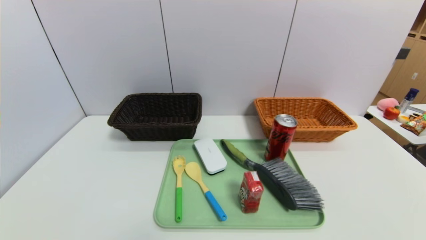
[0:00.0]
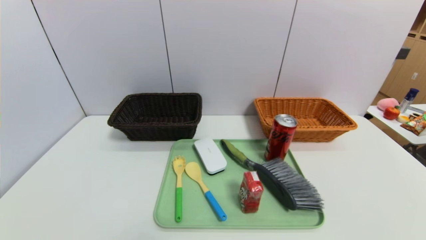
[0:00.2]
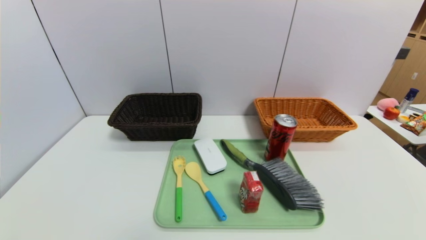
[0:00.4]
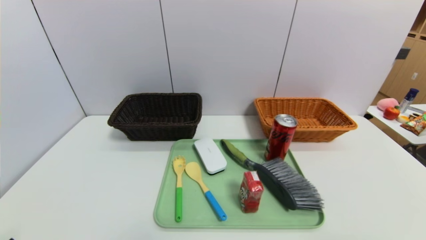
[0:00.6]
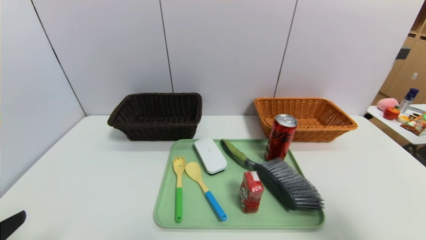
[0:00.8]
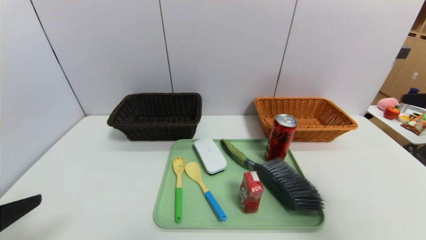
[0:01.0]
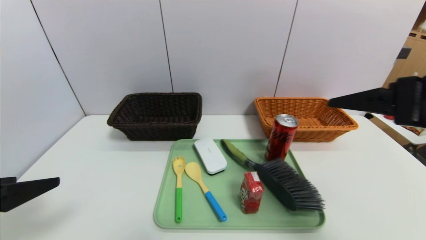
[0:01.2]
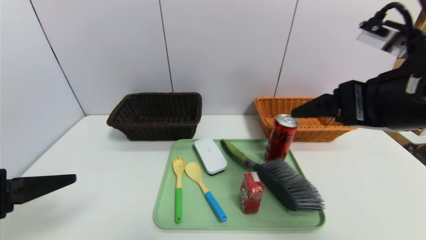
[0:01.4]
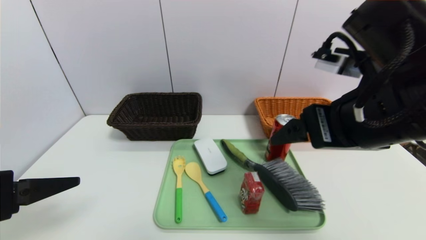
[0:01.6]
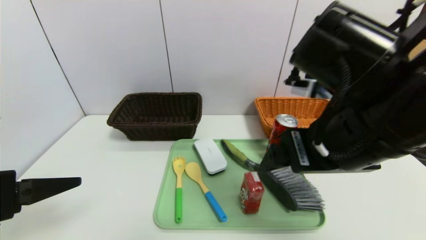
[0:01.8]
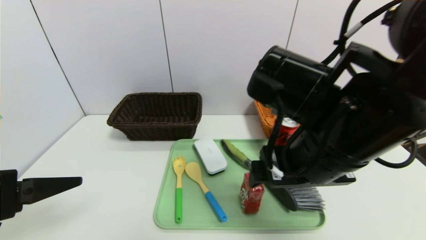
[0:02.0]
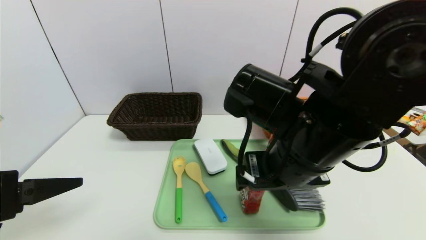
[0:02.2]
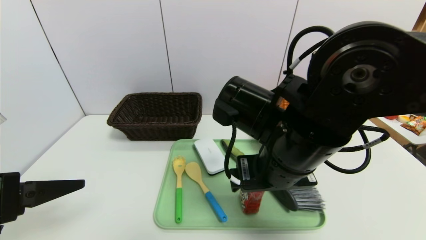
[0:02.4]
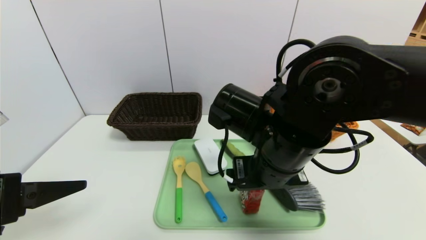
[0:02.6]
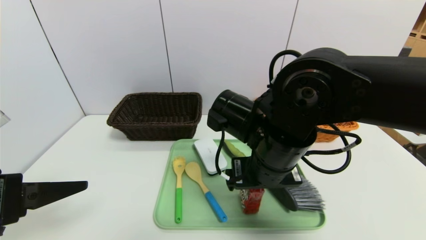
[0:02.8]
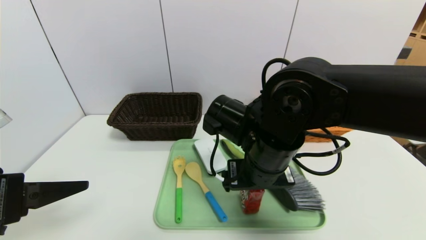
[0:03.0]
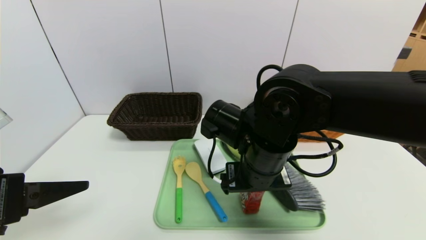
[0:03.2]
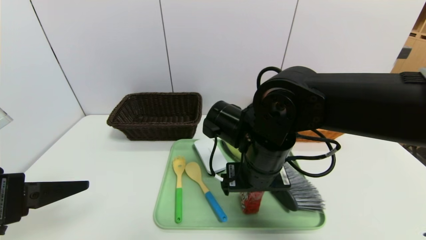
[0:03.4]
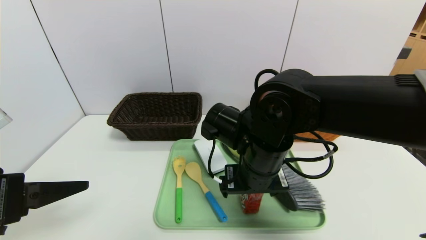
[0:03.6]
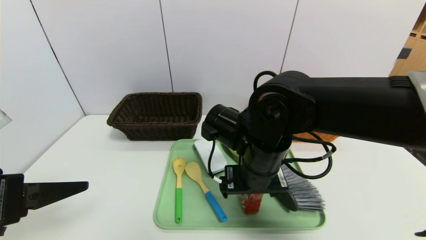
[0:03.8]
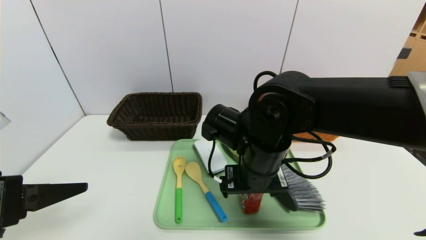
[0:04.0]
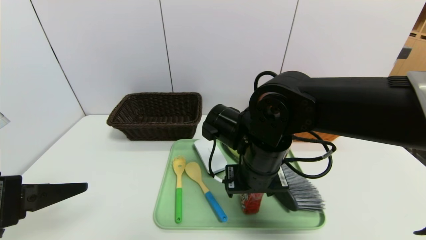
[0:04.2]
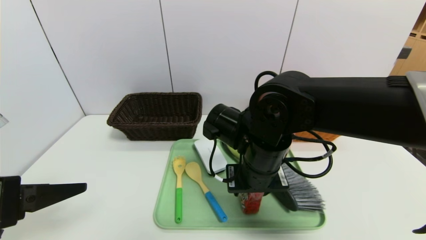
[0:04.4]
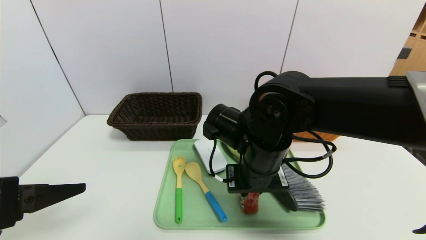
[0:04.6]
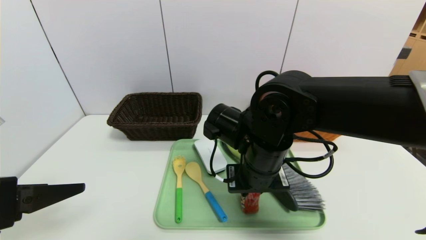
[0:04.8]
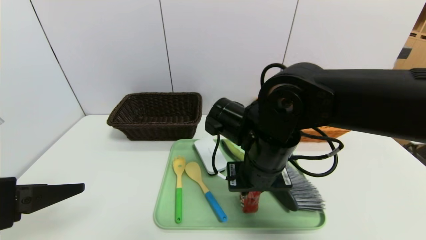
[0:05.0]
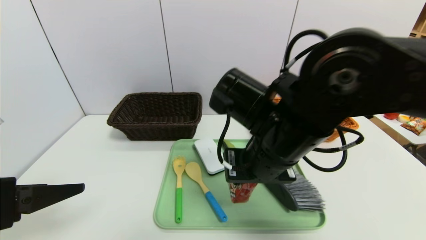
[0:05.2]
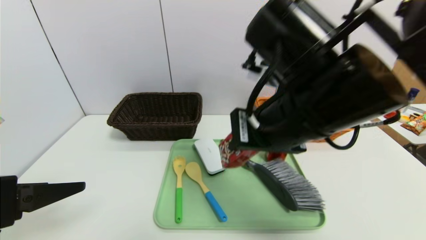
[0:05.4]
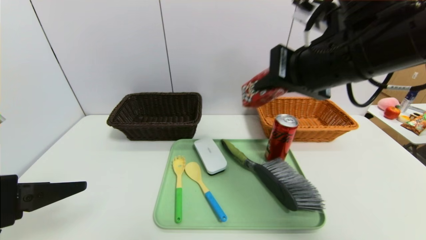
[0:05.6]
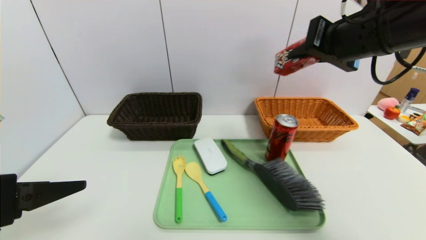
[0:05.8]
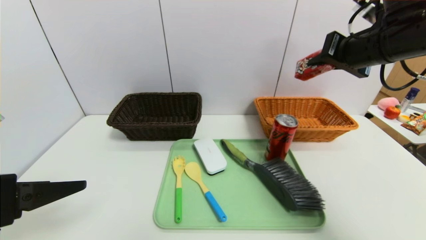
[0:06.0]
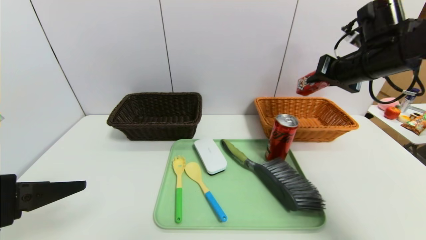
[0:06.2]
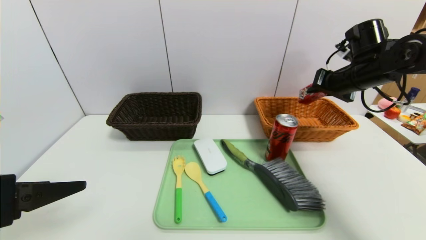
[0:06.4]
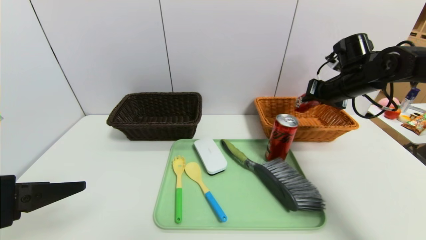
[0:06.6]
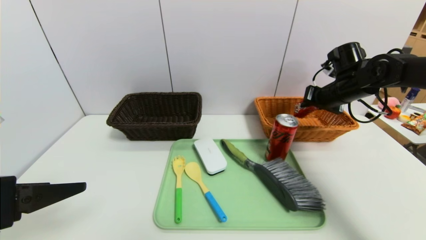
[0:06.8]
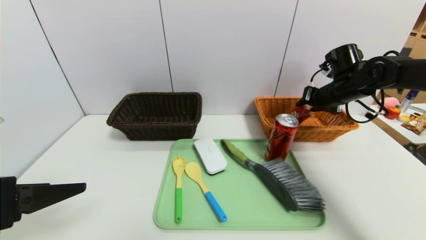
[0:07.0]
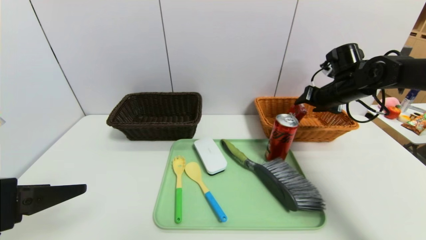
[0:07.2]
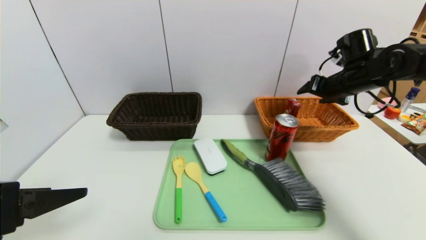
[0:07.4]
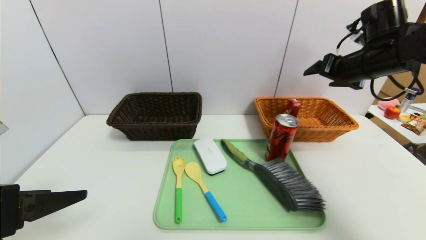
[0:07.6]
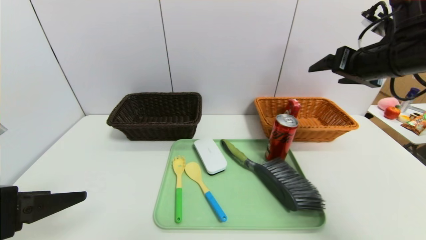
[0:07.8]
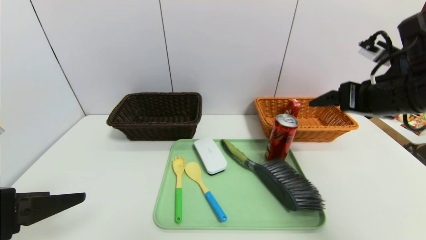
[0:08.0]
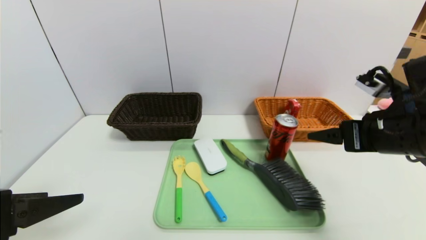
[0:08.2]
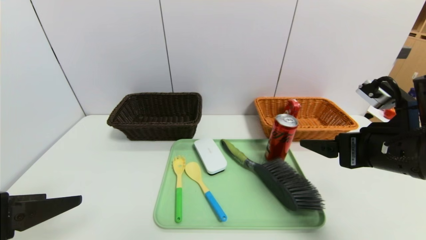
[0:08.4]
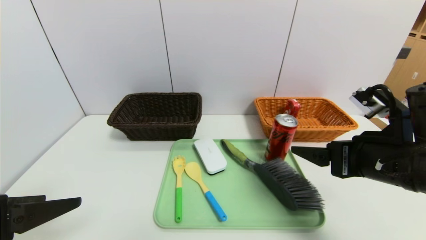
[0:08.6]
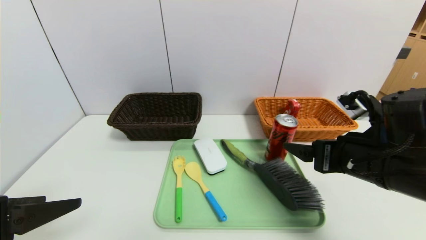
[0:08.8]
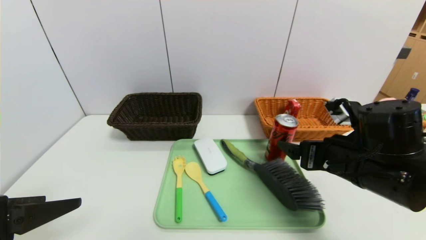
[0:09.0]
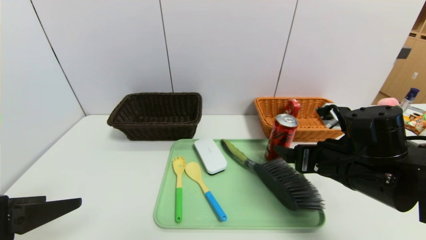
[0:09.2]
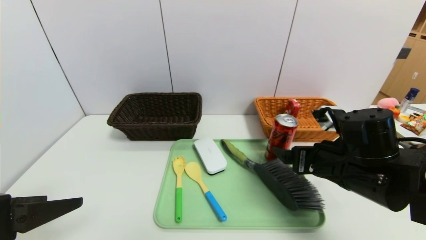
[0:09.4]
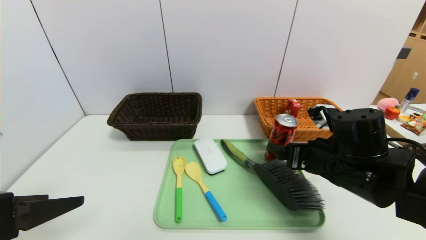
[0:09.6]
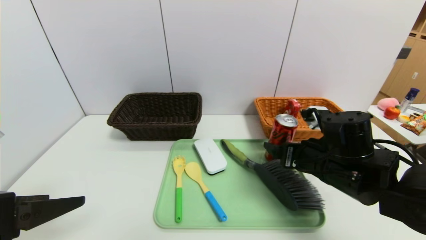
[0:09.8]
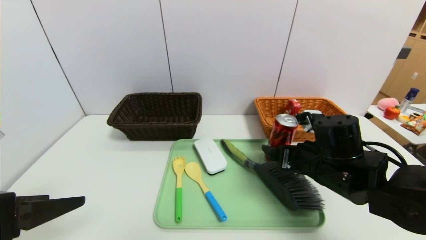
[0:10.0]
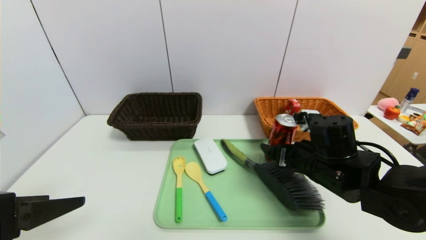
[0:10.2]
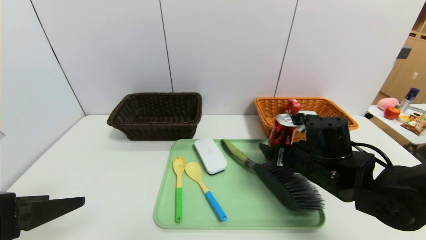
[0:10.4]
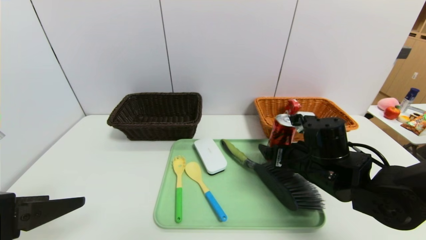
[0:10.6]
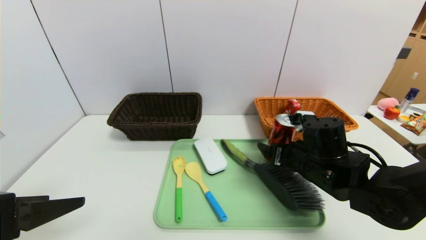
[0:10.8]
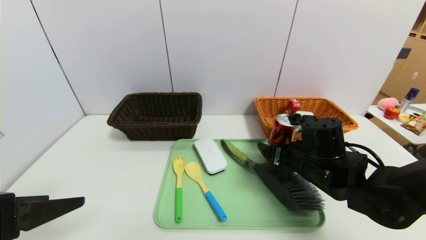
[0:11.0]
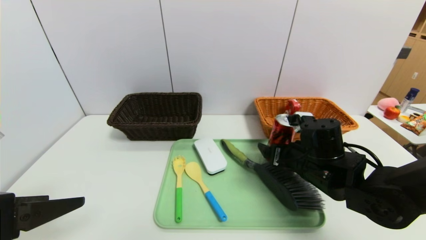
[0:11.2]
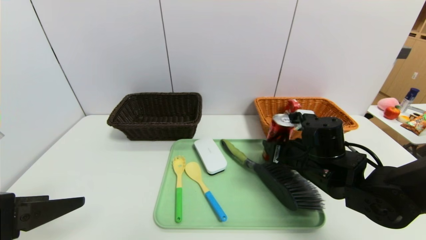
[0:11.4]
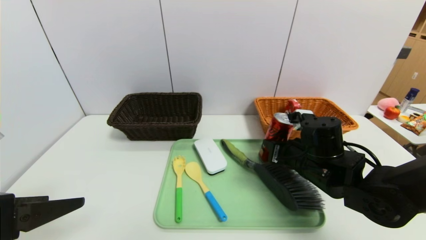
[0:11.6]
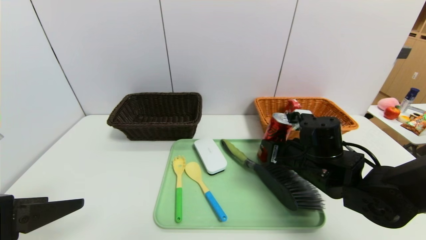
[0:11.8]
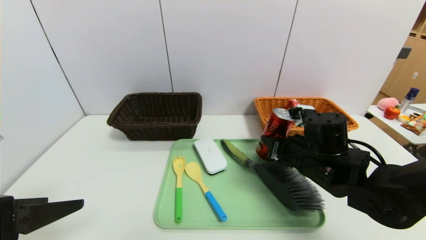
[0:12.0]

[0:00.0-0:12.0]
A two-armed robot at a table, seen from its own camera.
Task of the whole recording: place the food in the right basket with the right gripper, and place the non food items in the left basket with the left gripper.
Step, 0:00.0 to 0:07.0: Grasp the ad milk and put it in the right basket.
0:00.0 to 0:01.6: The left gripper shifts about 20 cm upward and forward, while the right gripper travels upward, forward and to the left by some 35 cm.
0:01.6 to 0:03.0: The right gripper shifts about 15 cm downward, to the left and forward.
0:03.0 to 0:04.4: The right gripper closes up.
0:04.4 to 0:06.0: The right gripper heads to the right and upward, covering about 25 cm, and closes.
0:06.0 to 0:07.6: The right gripper moves roughly 10 cm downward and comes back, and opens.
0:07.6 to 0:09.0: The right gripper moves backward, downward and to the left, some 20 cm.
0:09.0 to 0:10.4: The right gripper is displaced downward by about 5 cm.
0:10.4 to 0:12.0: The right gripper closes its fingers.

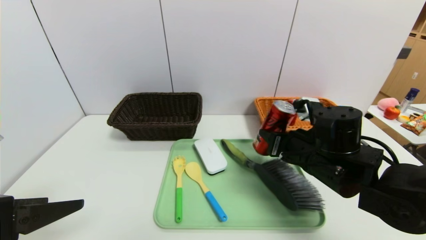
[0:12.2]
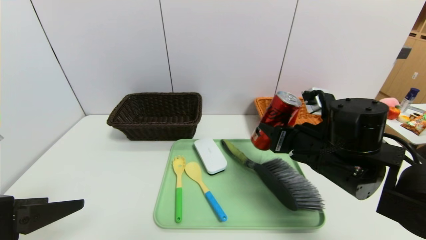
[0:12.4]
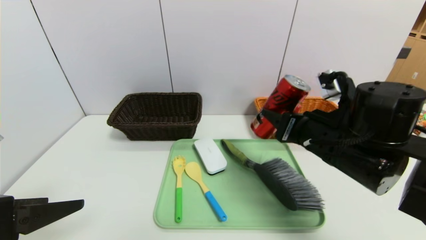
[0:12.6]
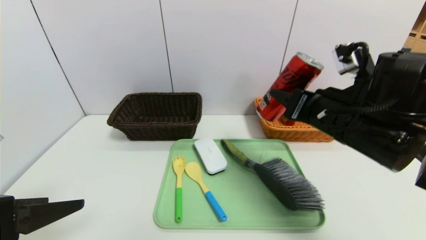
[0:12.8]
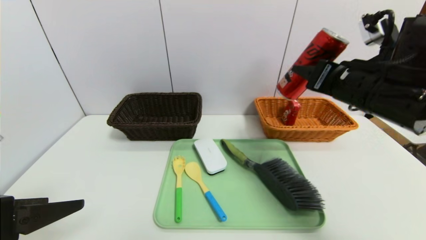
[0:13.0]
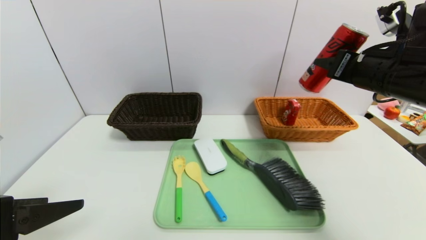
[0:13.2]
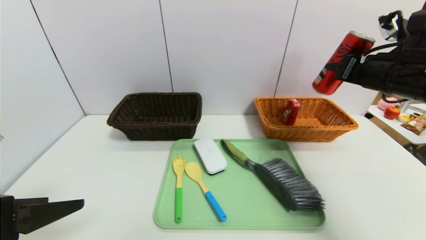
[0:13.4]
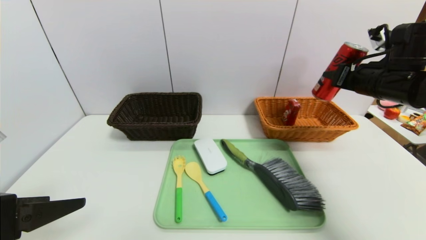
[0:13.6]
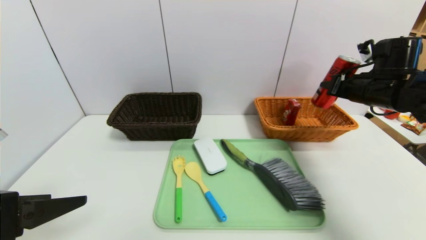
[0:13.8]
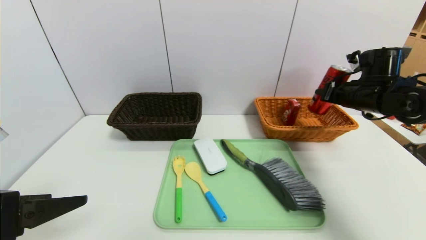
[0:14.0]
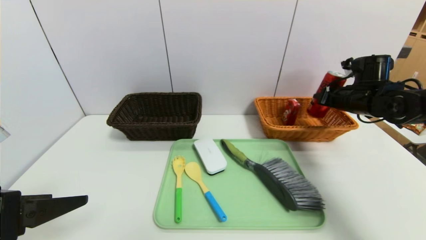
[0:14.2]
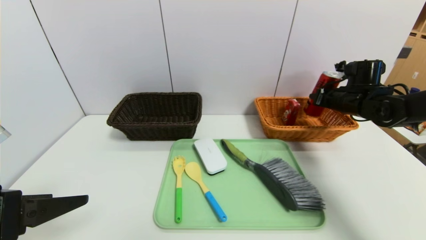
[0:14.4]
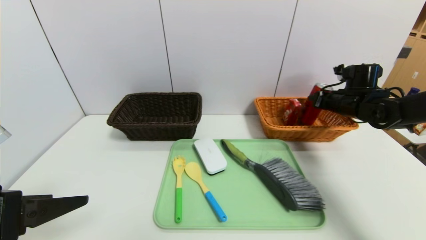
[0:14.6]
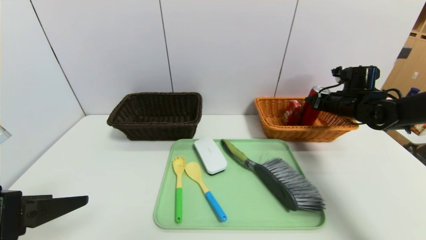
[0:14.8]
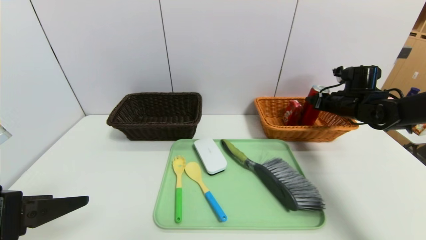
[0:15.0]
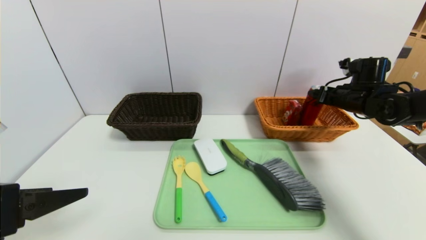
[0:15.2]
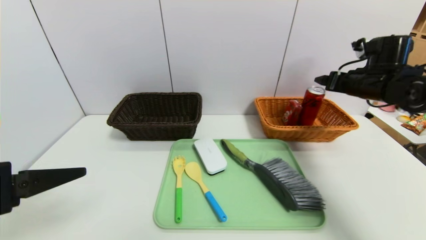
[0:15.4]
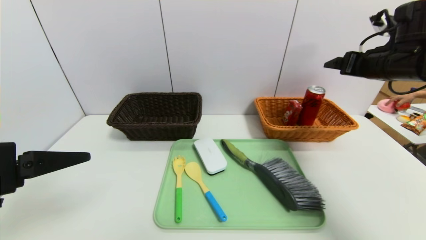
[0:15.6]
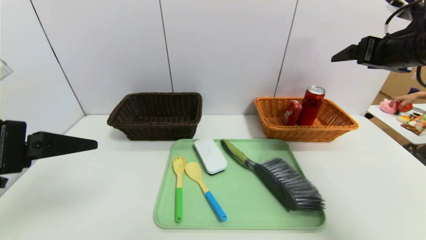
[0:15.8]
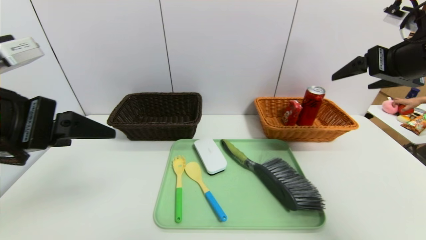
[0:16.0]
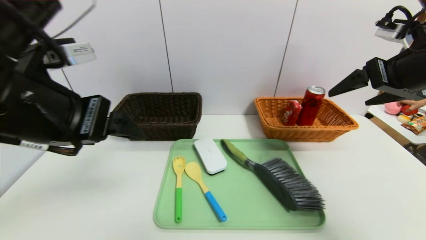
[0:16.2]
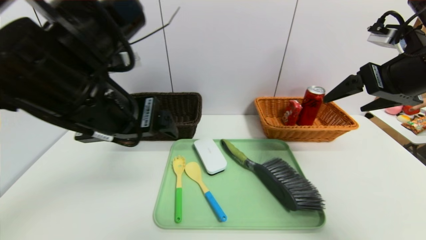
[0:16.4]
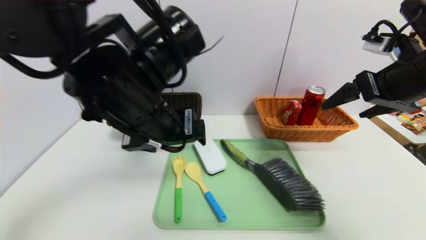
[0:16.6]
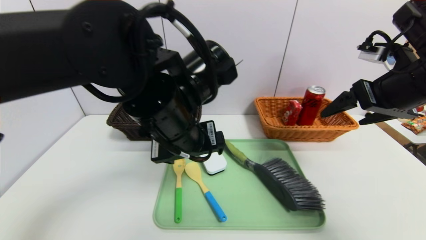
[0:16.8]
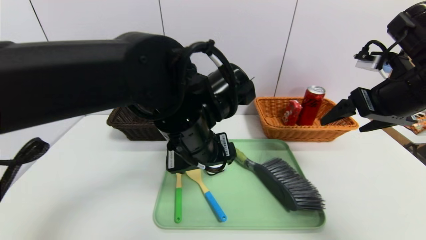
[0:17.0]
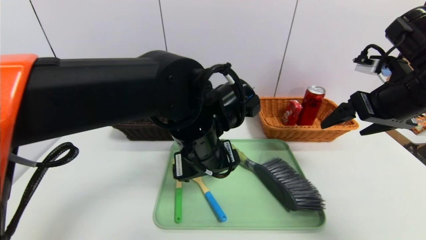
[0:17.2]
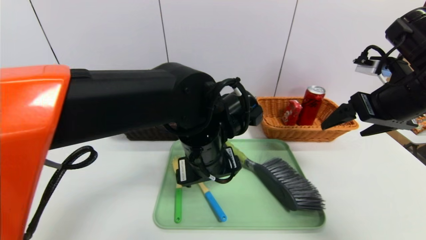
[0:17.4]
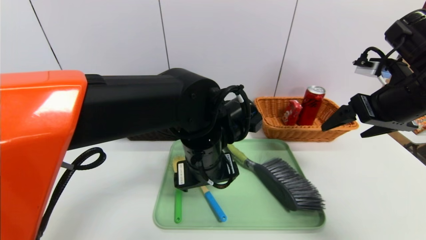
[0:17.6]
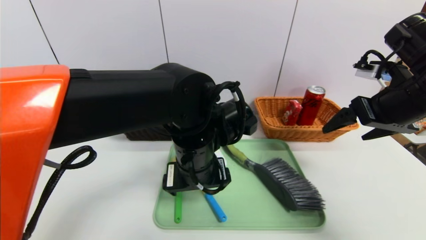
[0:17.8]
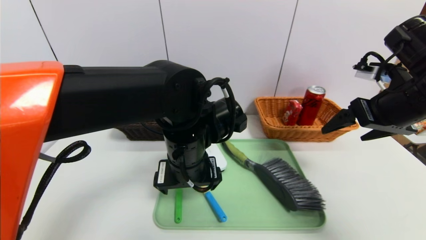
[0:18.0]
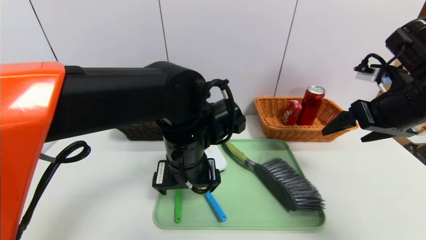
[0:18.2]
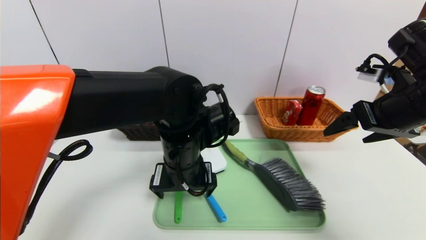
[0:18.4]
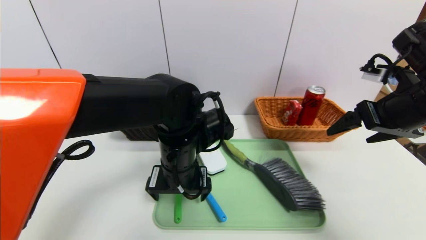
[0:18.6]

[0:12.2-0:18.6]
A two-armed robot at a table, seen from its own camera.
Task of the whole recording: place the food in the right basket with the right gripper, and place the non food items in the left basket with the left gripper.
Step, 0:12.2 to 0:15.0: Grasp the canned cola and put it in the right basket.
0:12.2 to 0:13.8: The right gripper goes roughly 20 cm to the right, forward and upward.
0:13.8 to 0:15.4: The right gripper opens.
0:15.4 to 0:17.0: The right gripper goes about 15 cm backward and upward, while the left gripper is displaced to the right and forward by approximately 30 cm.
0:17.0 to 0:18.6: The left gripper goes roughly 5 cm downward.
